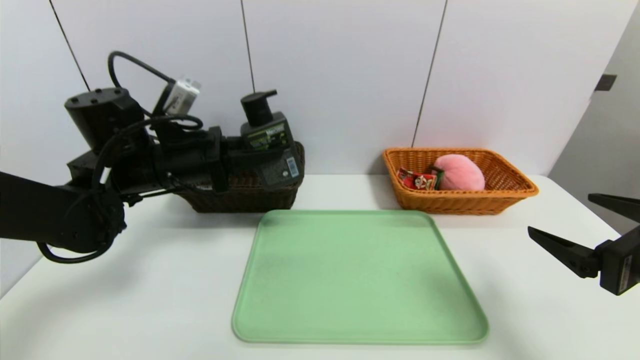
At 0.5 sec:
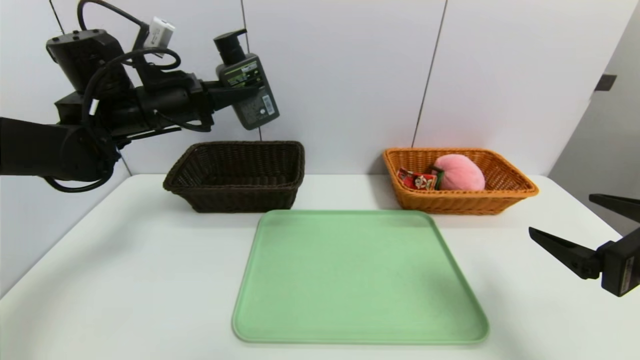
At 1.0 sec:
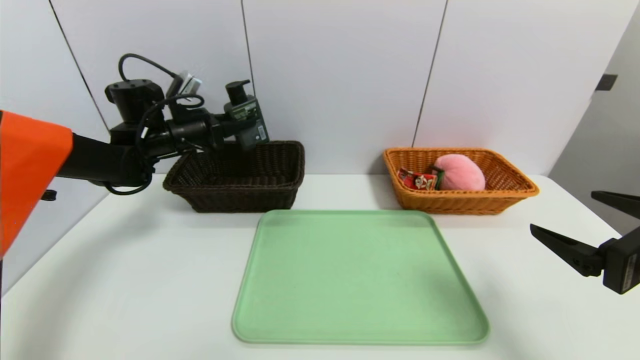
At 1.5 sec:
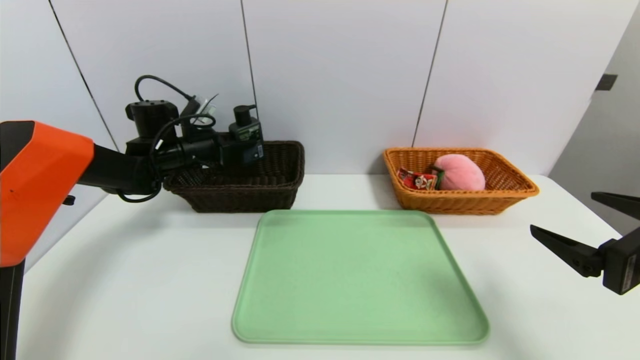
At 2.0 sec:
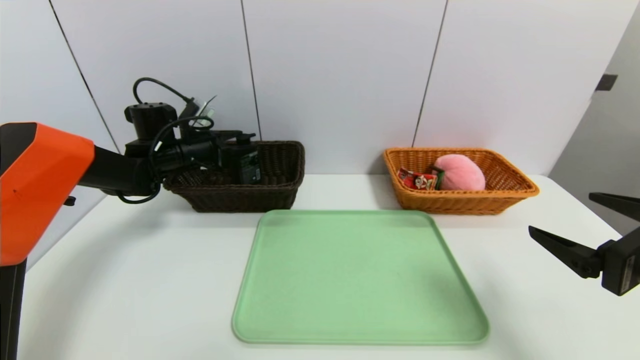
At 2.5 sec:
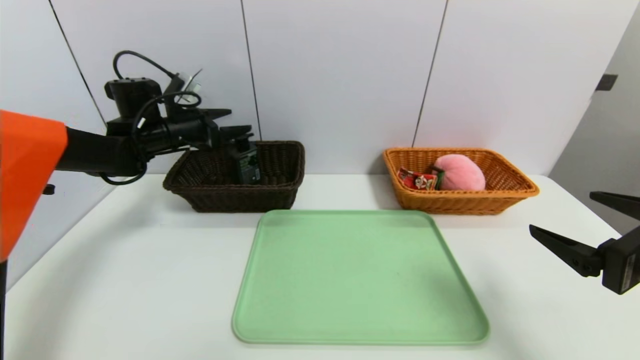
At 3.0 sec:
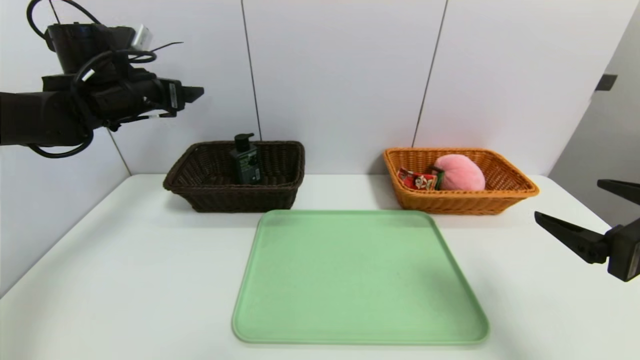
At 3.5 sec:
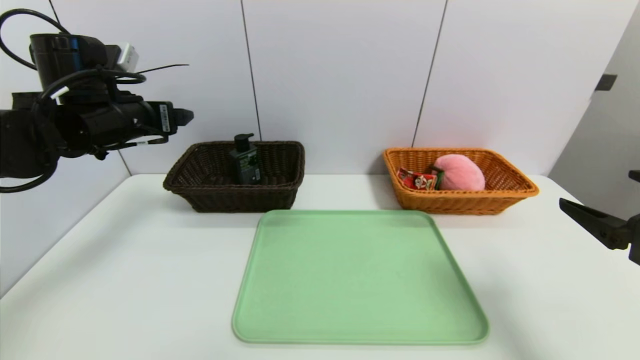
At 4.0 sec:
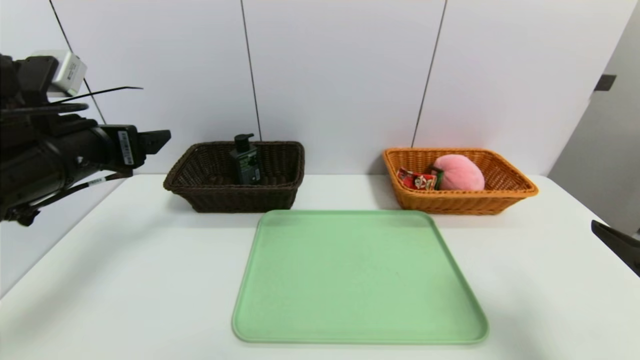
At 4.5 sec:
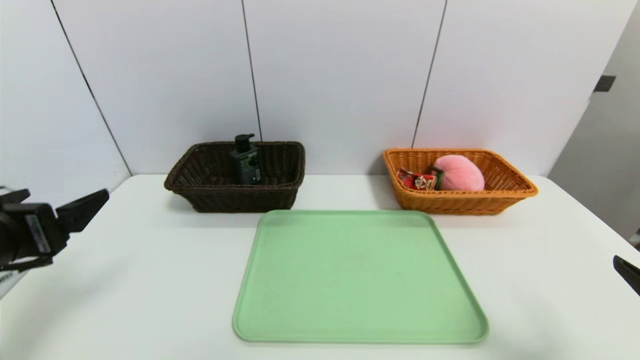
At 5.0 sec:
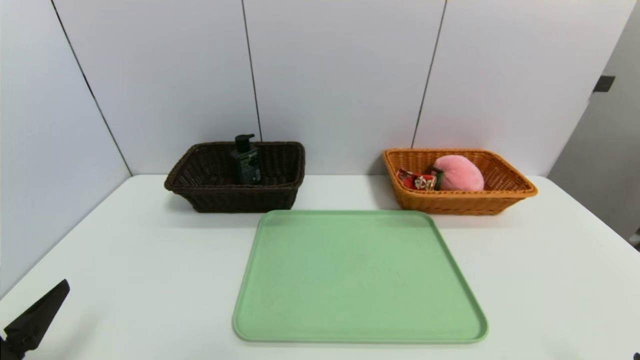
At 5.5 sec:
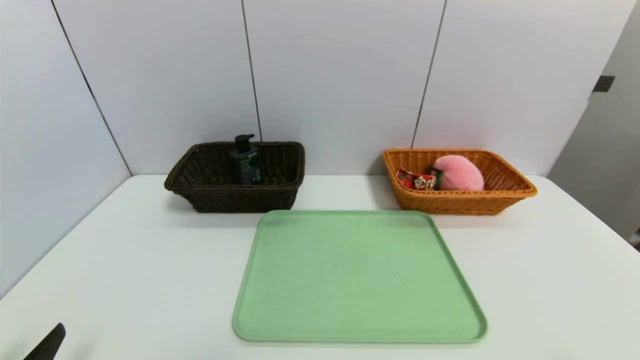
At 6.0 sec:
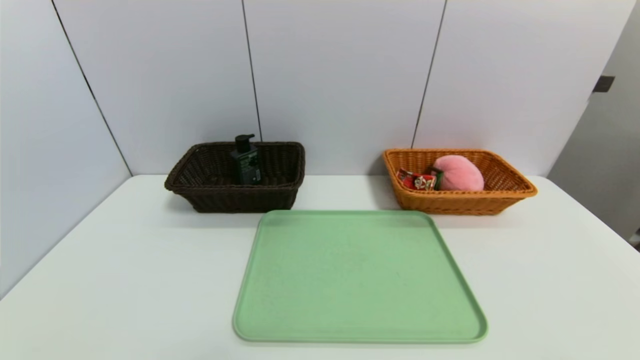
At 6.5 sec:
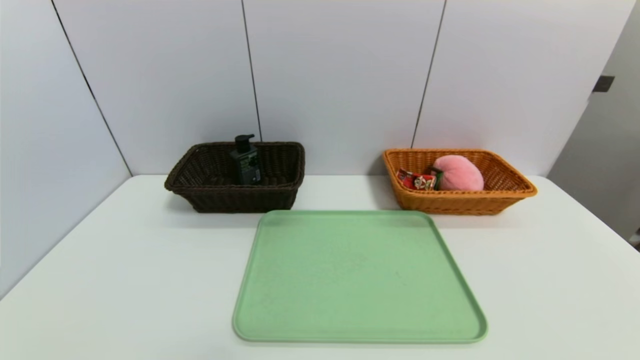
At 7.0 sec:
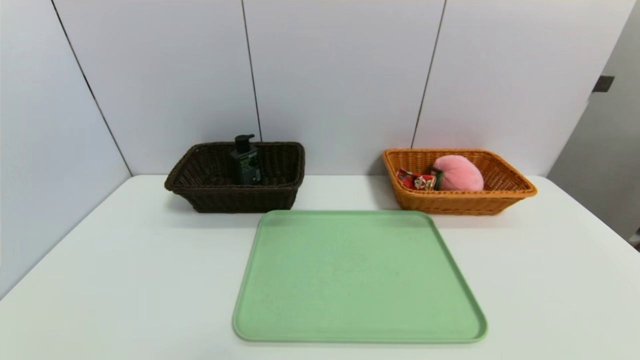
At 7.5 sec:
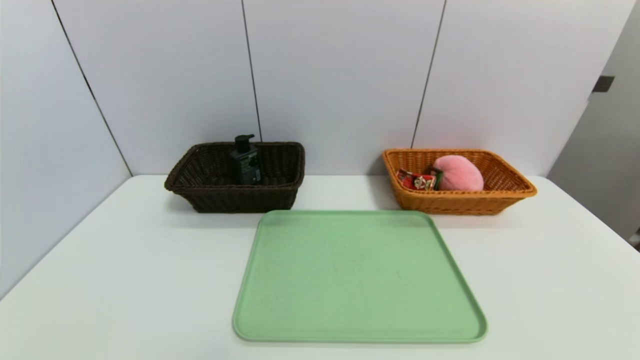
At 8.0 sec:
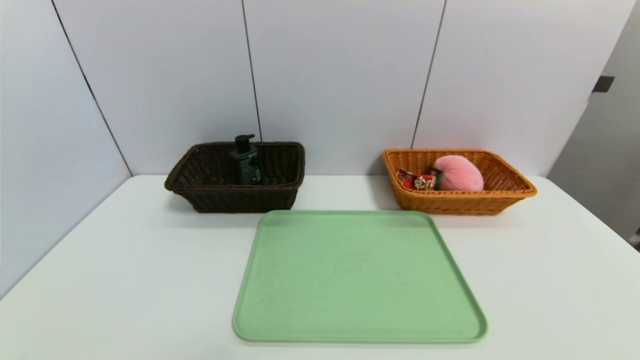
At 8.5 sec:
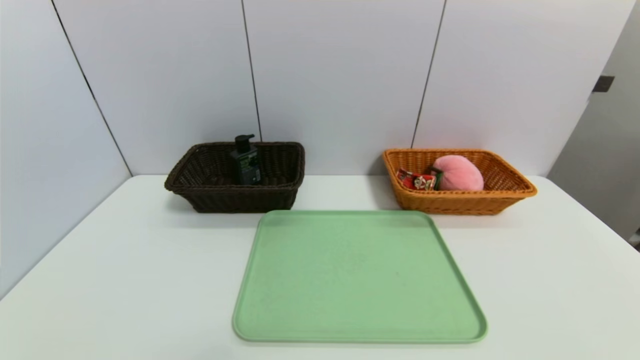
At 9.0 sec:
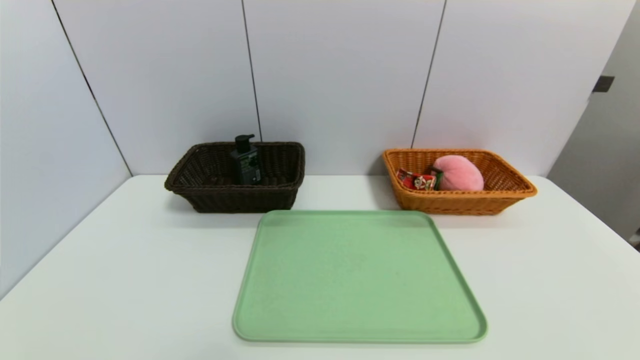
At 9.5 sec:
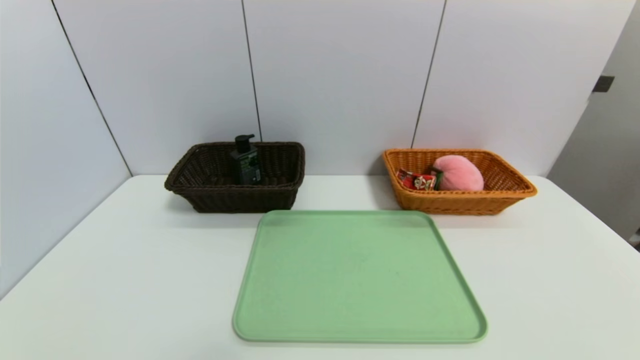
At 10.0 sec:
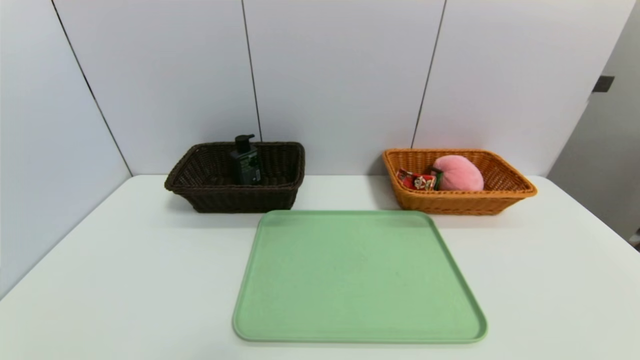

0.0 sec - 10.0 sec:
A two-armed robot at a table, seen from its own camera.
Task of the whole recording: place the food in the right basket with the right gripper, and place the non food items in the left basket with the left gripper.
Step, 0.0 sec - 3.0 sec: Grasp the hard cleanser and put it in the left basket.
0.0 sec - 2.0 sec: The left gripper moves forward, to the left and downward, roughly 15 cm, and opens up.
2.0 sec - 4.0 sec: The left gripper shifts approximately 25 cm backward and upward.
4.0 sec - 6.0 sec: The left gripper heads backward and downward, covering approximately 30 cm. The right gripper travels backward and downward by some 15 cm.
